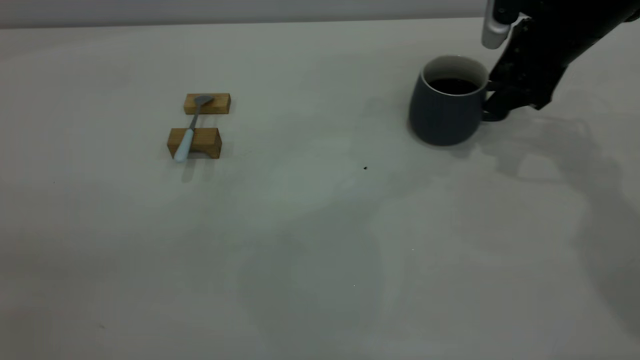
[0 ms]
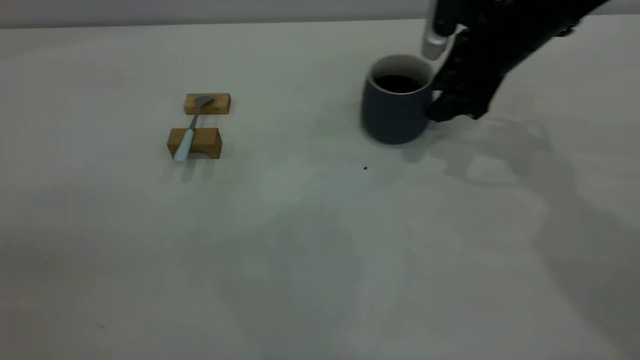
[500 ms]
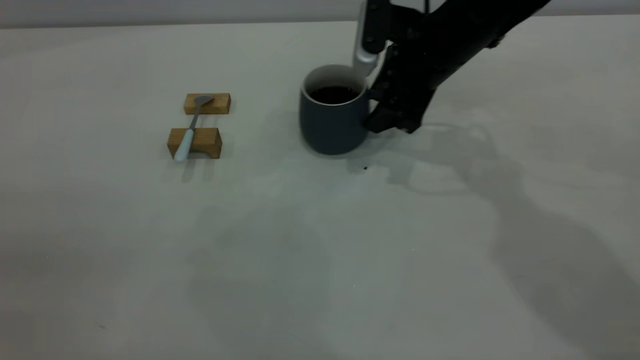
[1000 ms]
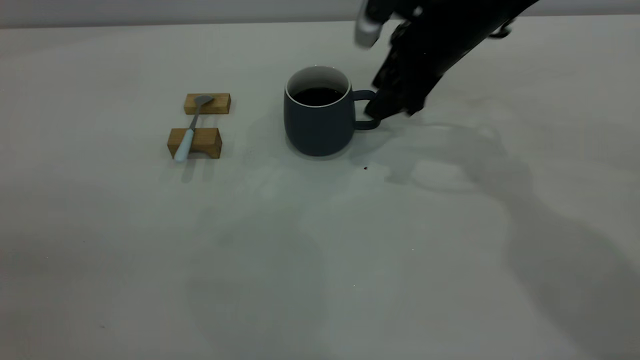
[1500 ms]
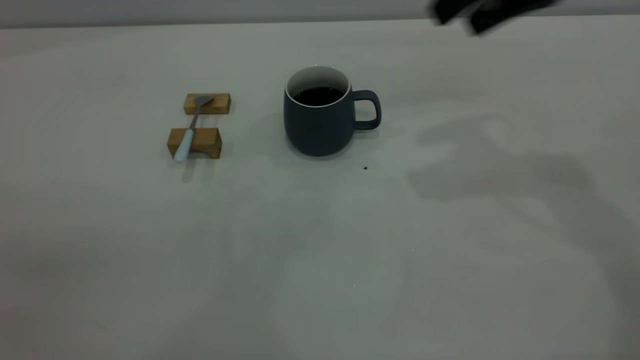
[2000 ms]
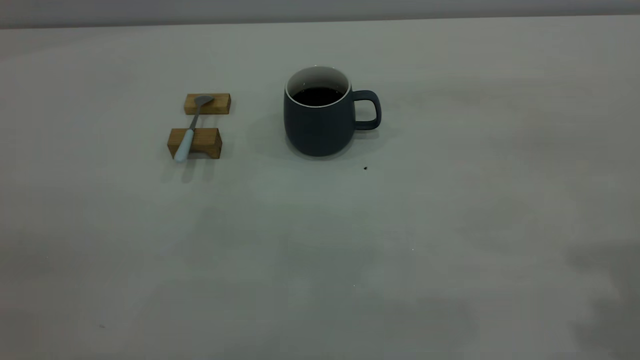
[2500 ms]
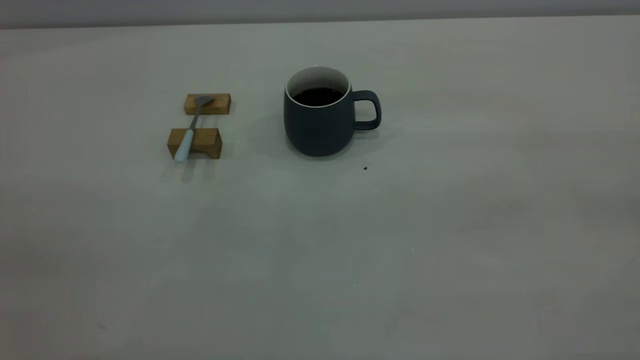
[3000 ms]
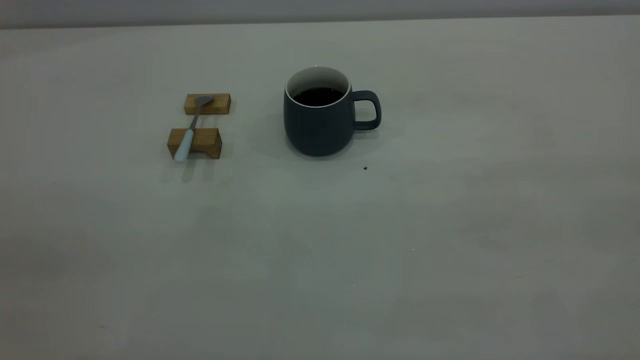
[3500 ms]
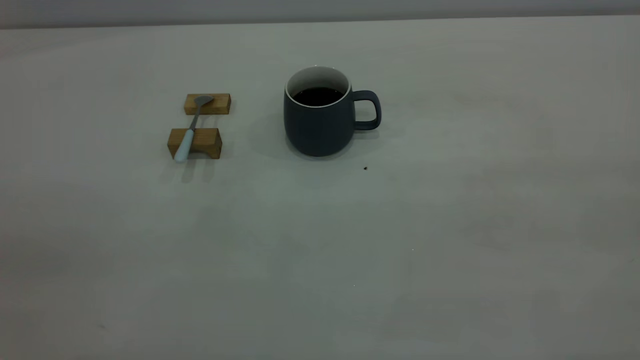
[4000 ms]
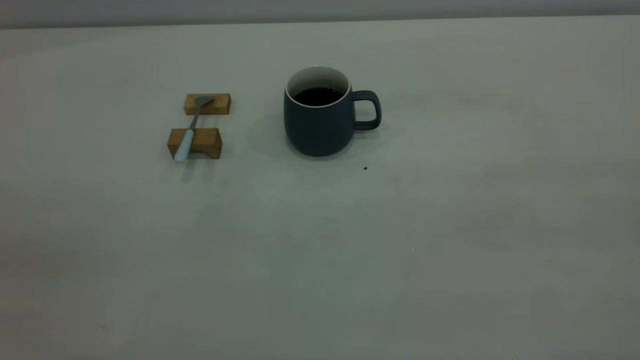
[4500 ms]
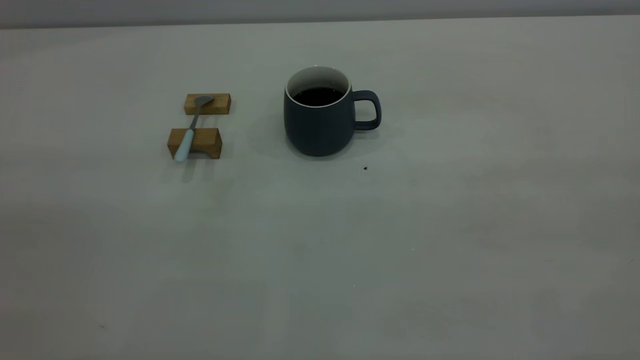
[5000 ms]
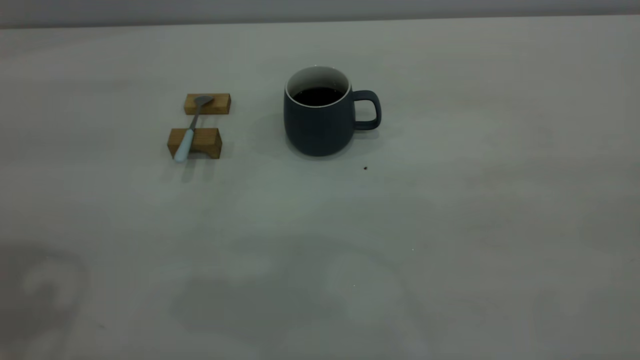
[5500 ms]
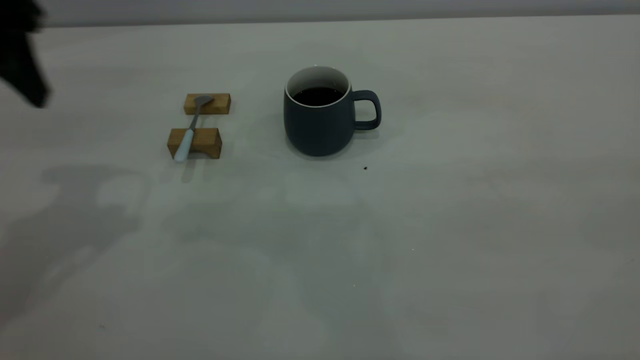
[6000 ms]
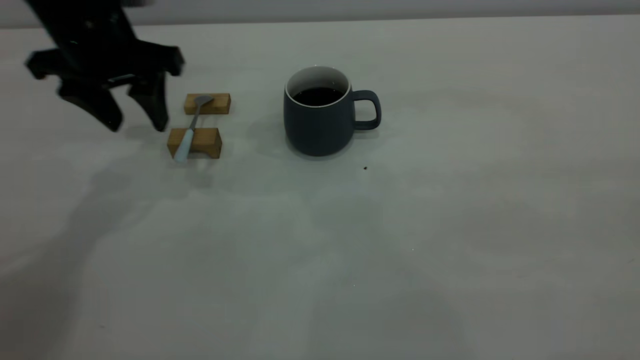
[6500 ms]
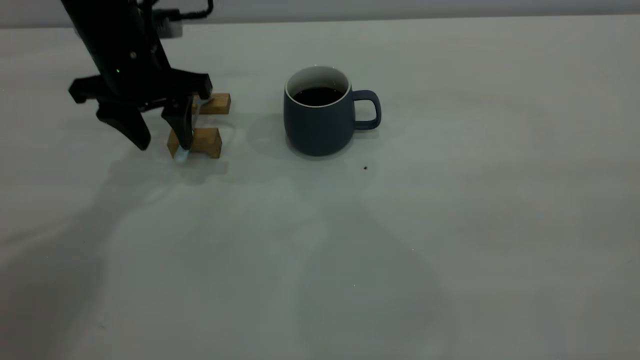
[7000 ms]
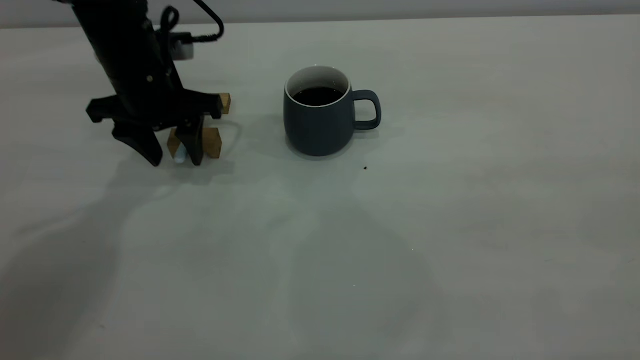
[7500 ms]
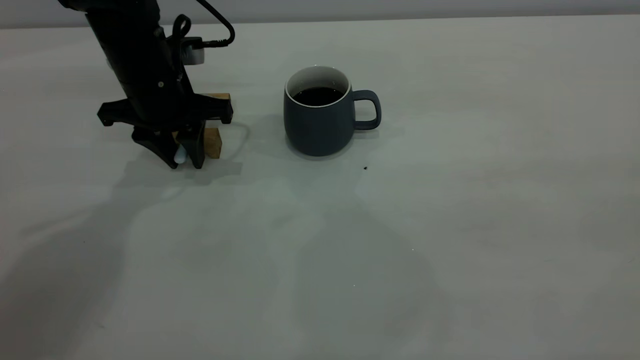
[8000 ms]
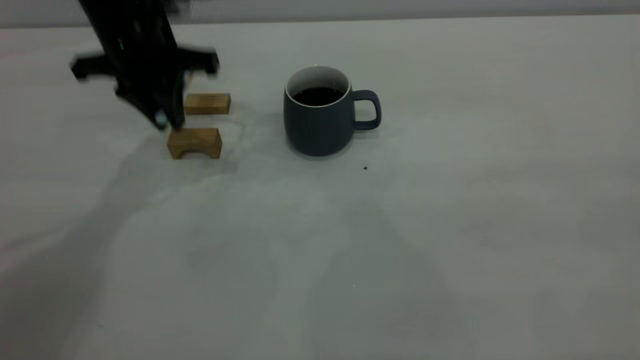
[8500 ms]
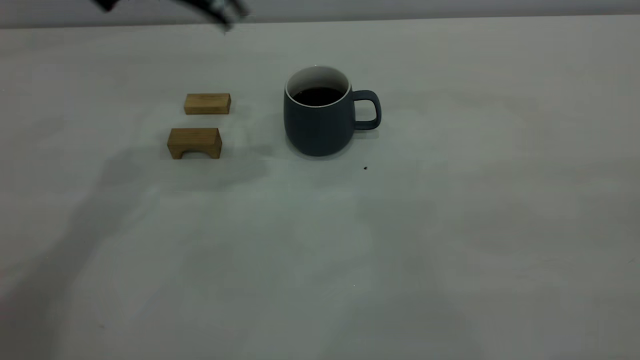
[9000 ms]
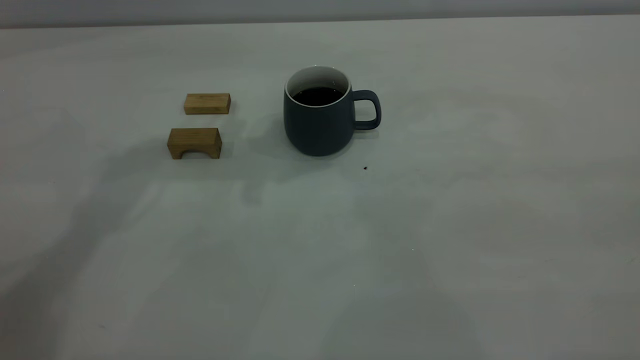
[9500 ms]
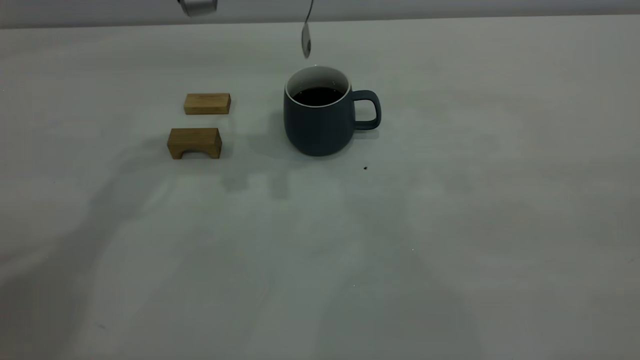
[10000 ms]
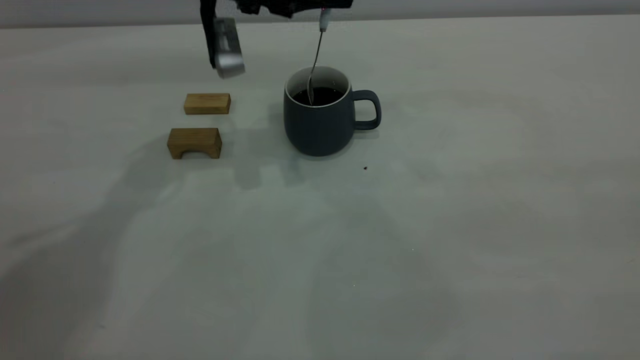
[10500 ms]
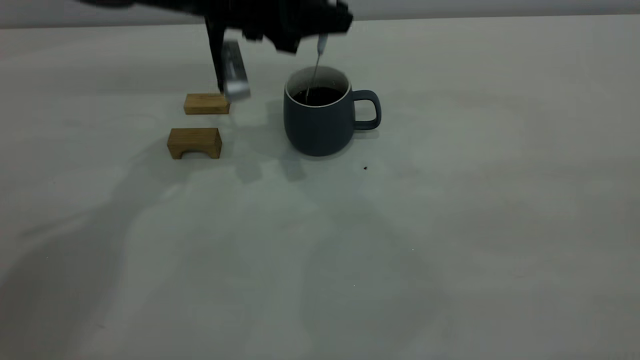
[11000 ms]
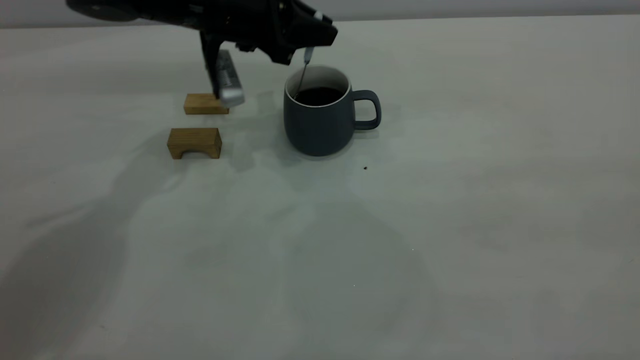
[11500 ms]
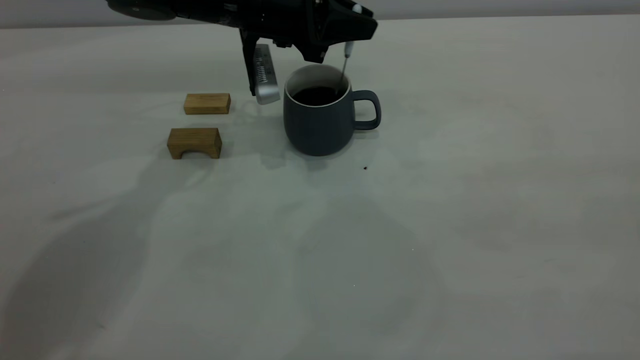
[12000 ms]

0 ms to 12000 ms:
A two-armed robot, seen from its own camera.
Step, 2000 ms to 8000 ms: Pick up the spoon.
0 ms to 2000 ms: The right gripper moves upward and backward, about 15 cm.
2000 ms to 4000 ms: The right gripper goes about 35 cm backward.
4000 ms to 6000 ms: The left gripper is displaced forward by about 30 cm.
6000 ms to 8000 ms: The left gripper heads downward, forward and to the right, covering approximately 20 cm, and closes up.
8000 ms to 10000 ms: The left gripper shifts some 20 cm upward and to the right, and closes up.
10000 ms to 12000 ms: The left gripper travels downward by some 10 cm.

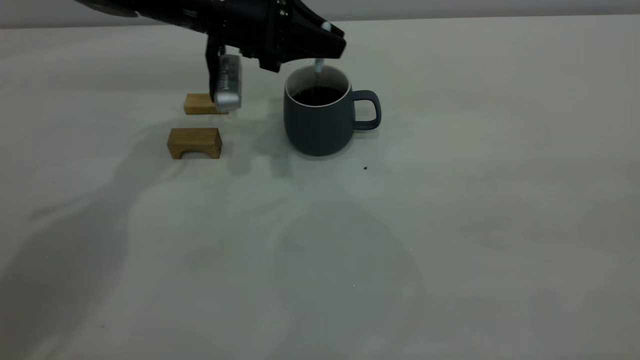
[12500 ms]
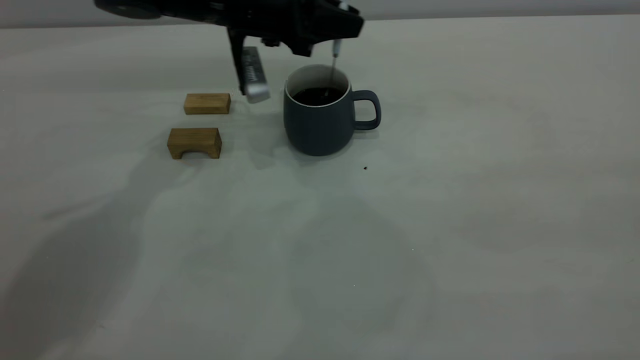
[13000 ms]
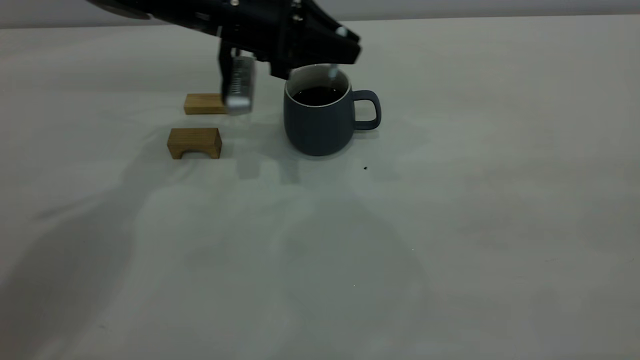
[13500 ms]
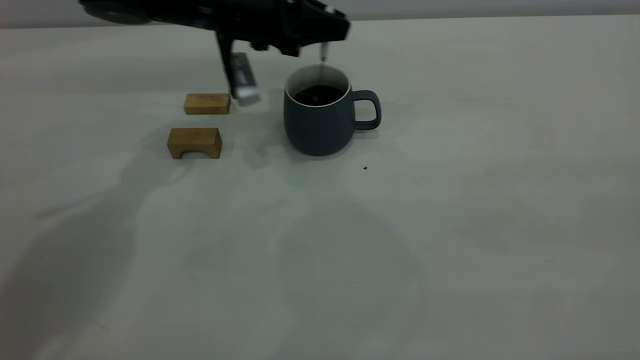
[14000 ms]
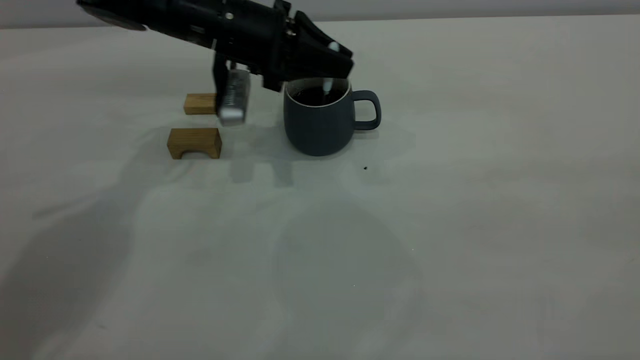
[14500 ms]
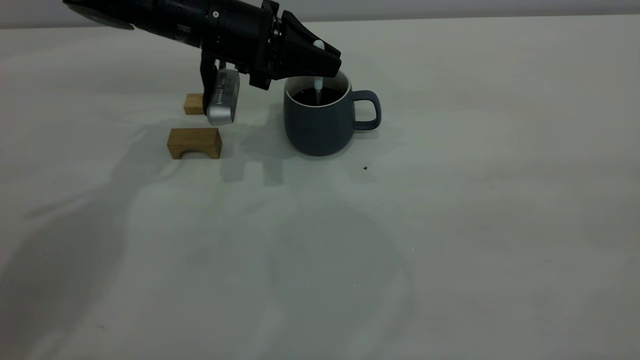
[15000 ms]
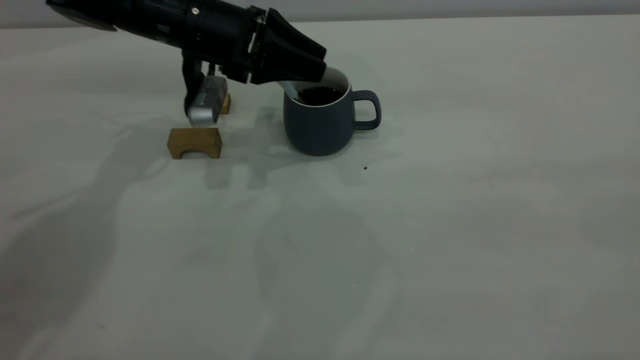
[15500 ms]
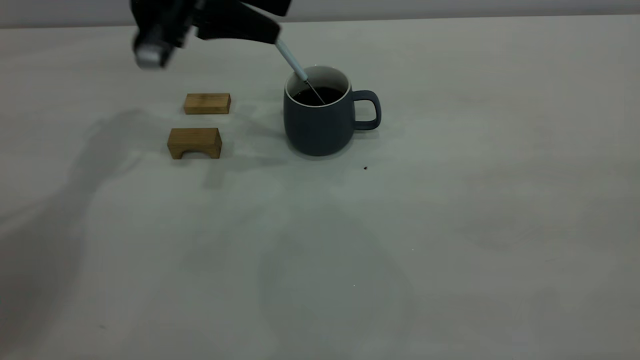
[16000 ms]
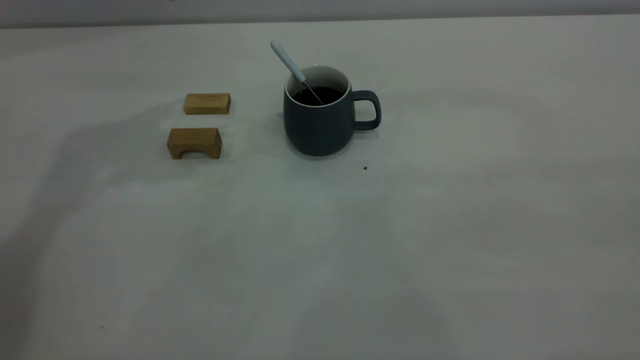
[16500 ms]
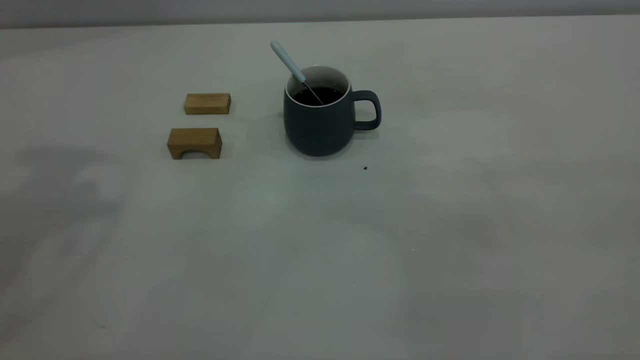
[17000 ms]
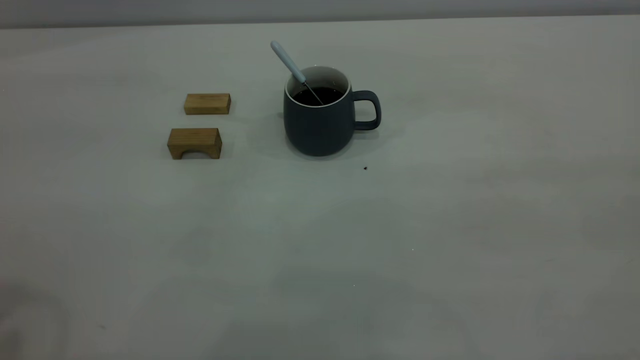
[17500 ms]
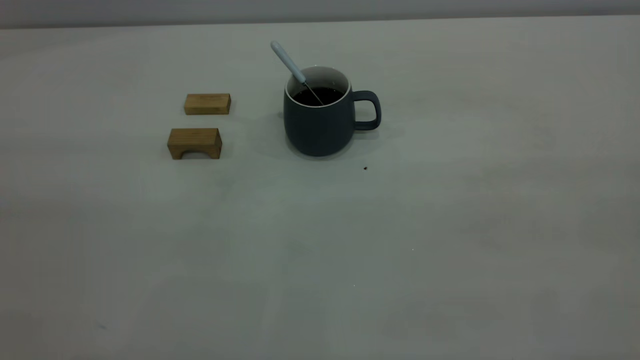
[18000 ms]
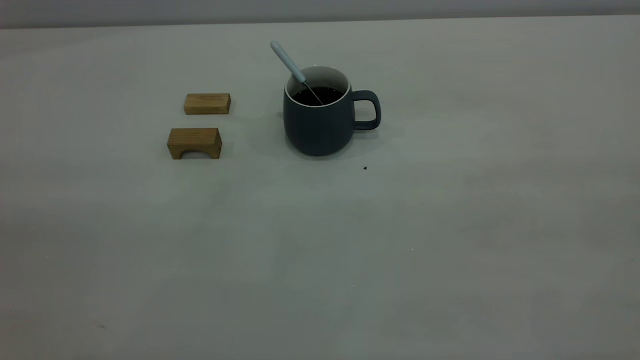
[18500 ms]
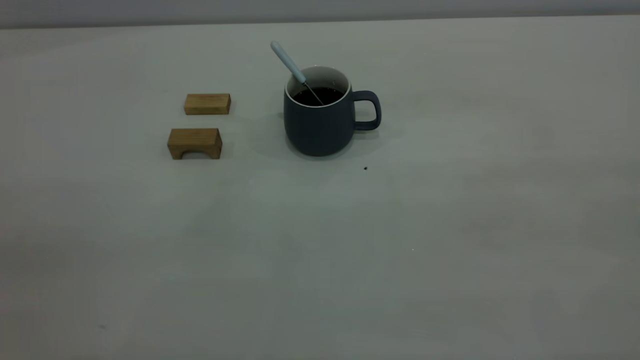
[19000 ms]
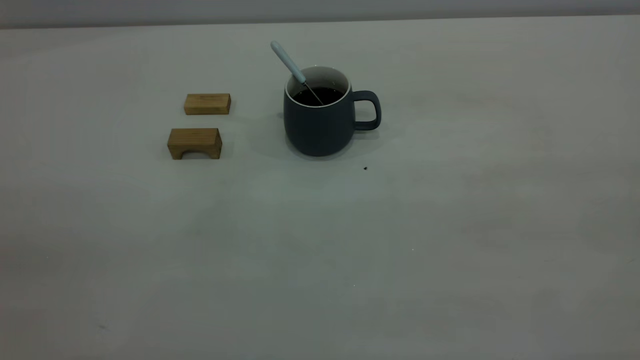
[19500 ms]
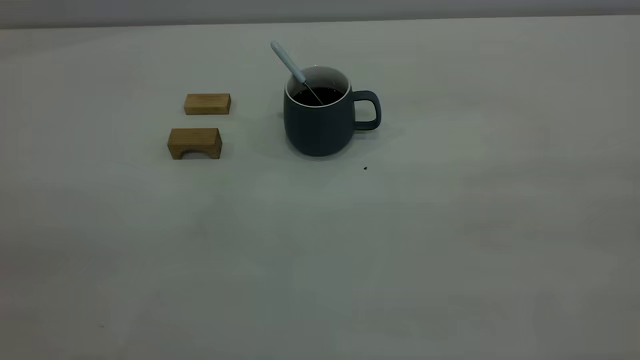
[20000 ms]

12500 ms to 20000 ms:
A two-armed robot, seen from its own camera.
Step, 12500 ms to 16000 ms: Stir the coffee in the cup.
12500 ms to 14500 ms: The grippers make only small movements.
14500 ms to 16500 ms: The left gripper moves upward and to the left, some 25 cm, and opens up.
